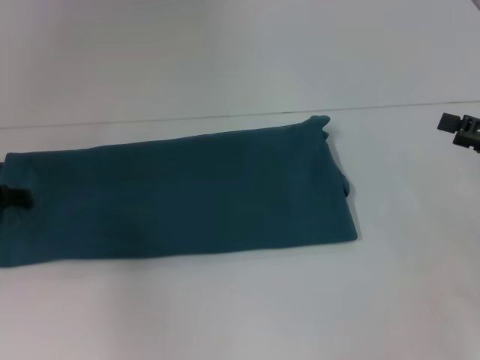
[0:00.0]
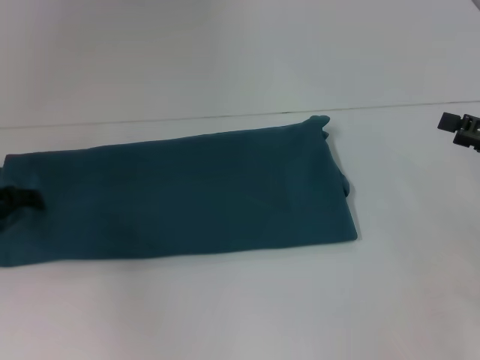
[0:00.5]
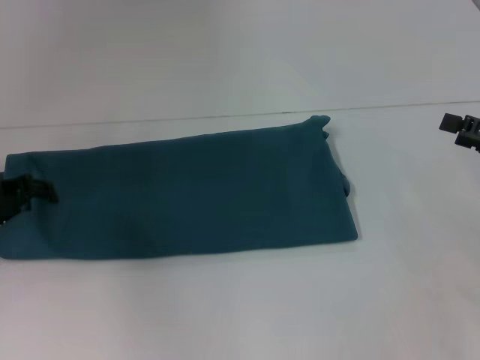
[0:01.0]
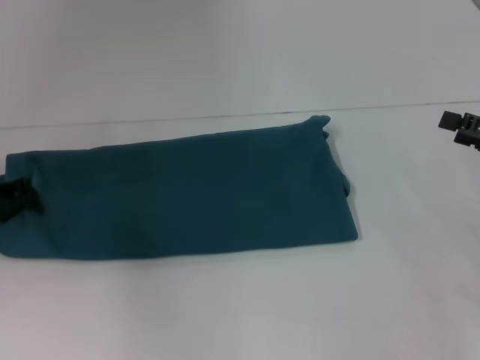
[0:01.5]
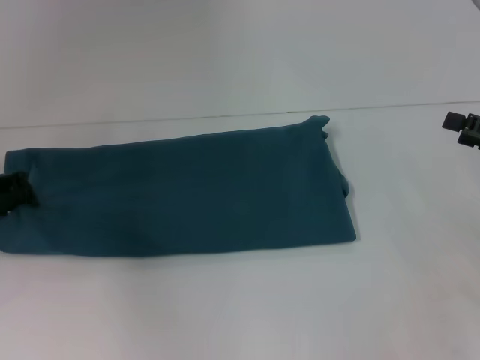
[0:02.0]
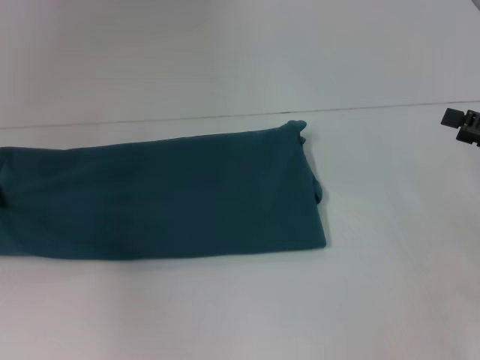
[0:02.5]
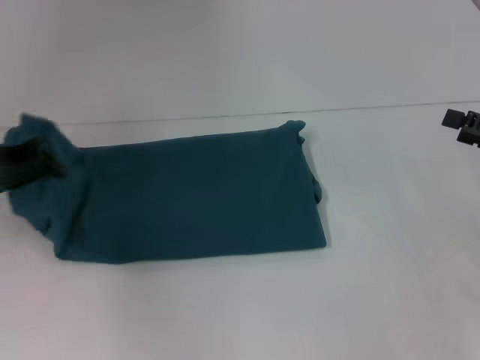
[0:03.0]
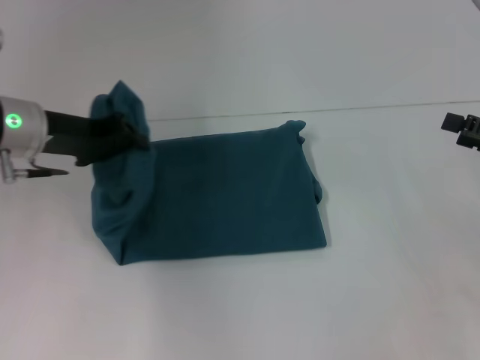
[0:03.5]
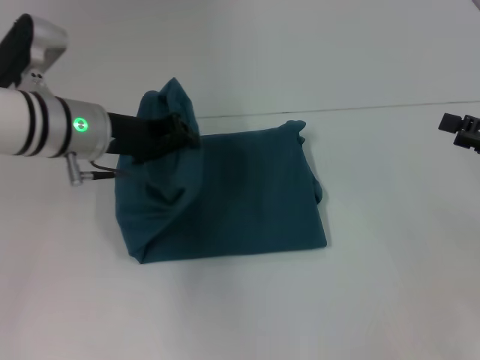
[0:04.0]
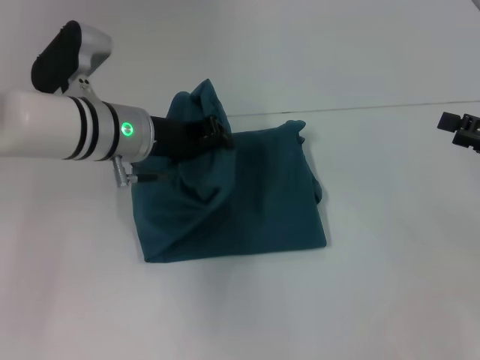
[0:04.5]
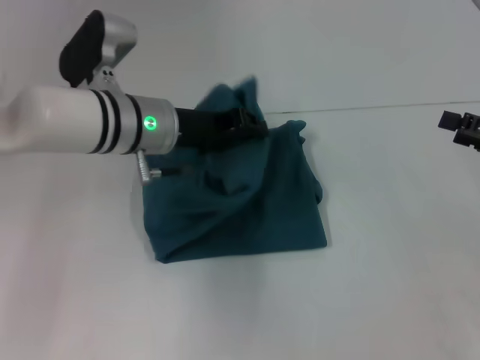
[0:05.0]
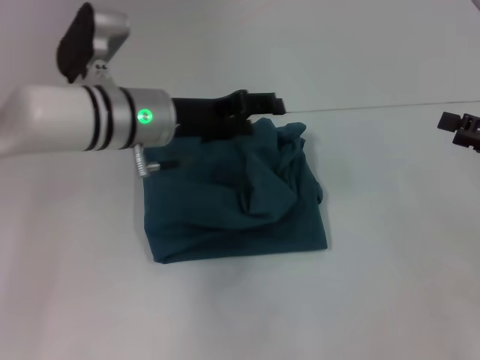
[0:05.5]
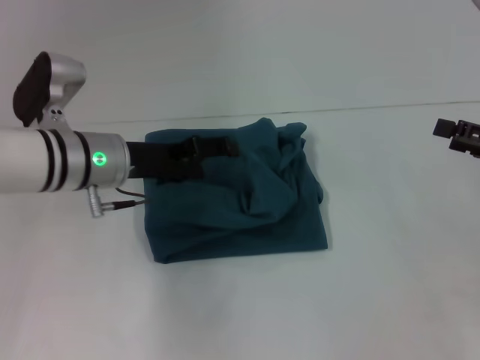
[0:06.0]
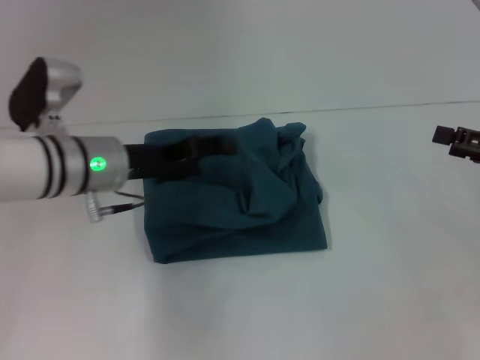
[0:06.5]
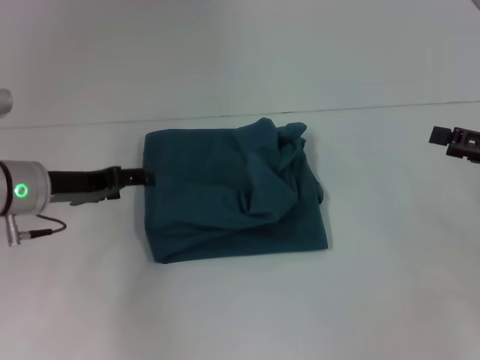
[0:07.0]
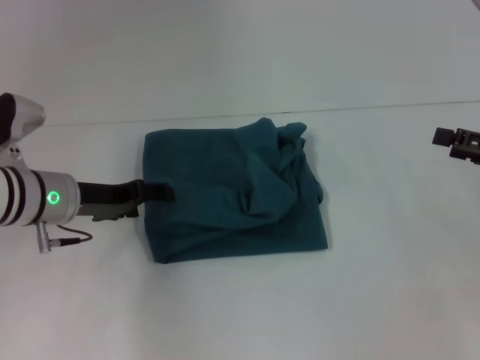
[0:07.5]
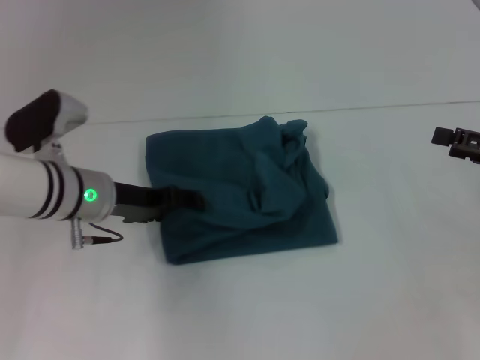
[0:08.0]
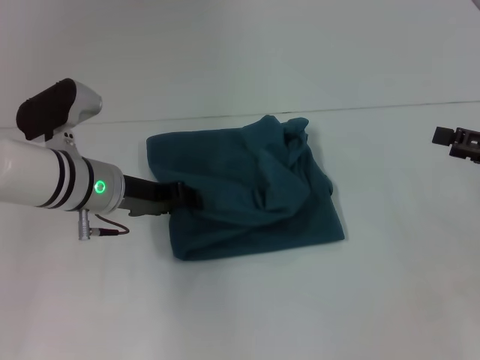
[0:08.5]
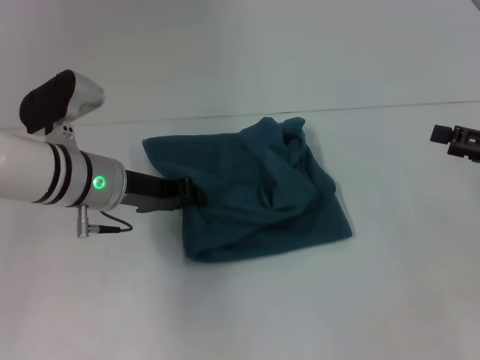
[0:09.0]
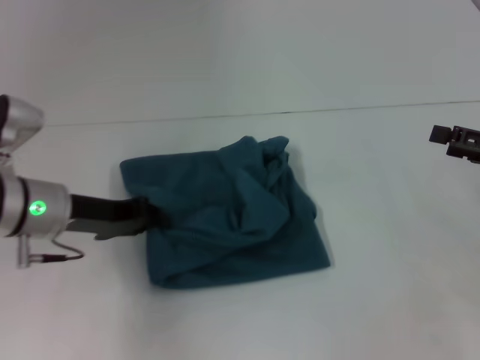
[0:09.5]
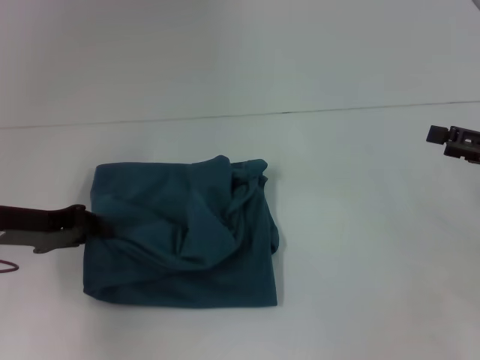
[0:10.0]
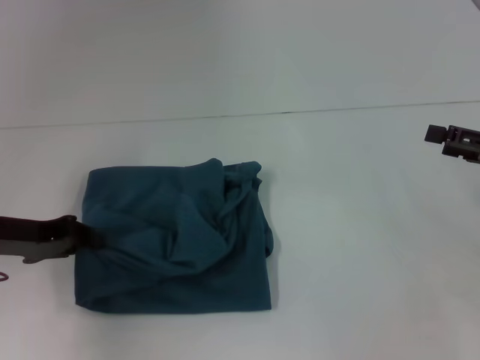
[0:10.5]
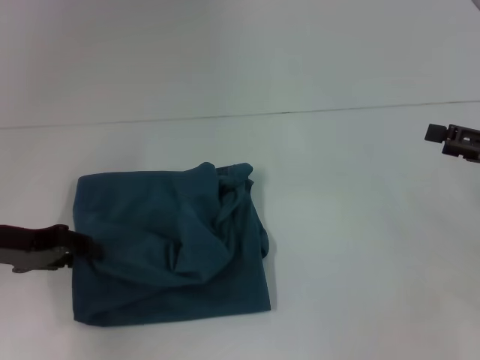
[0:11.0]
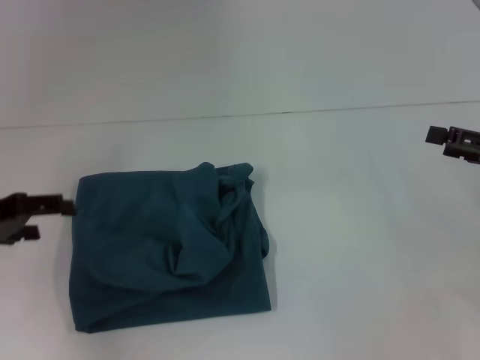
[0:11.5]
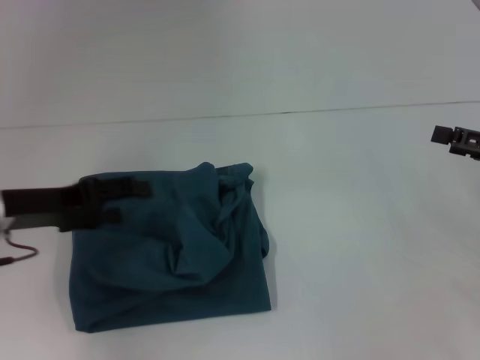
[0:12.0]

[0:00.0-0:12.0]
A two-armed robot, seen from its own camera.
Step, 0:00.0 to 0:05.0: Fold the clothes to the left.
0:00.0 to 0:02.0: The left gripper closes.
0:02.0 to 0:04.0: The left gripper shifts about 15 cm to the right.
0:04.0 to 0:06.0: The left gripper opens up.
0:06.0 to 0:08.0: The left gripper reaches roughly 10 cm to the left, then returns.
0:08.0 to 0:10.0: The left gripper moves to the left, about 10 cm, and closes its fingers.
0:10.0 to 0:12.0: The left gripper opens.

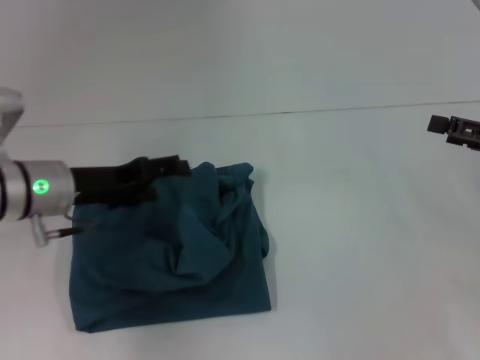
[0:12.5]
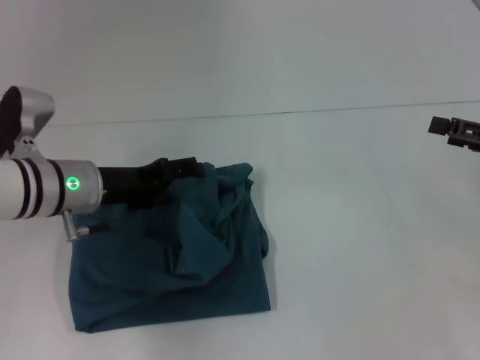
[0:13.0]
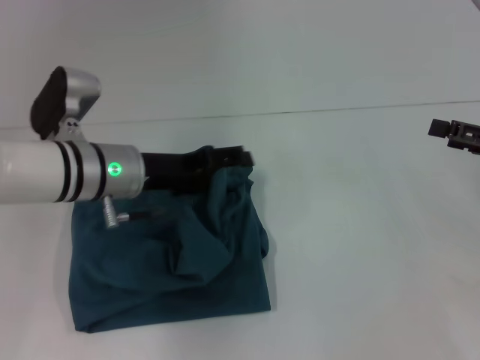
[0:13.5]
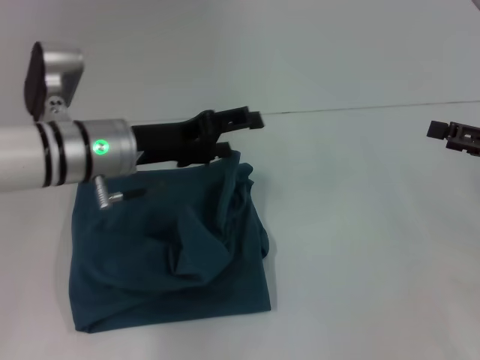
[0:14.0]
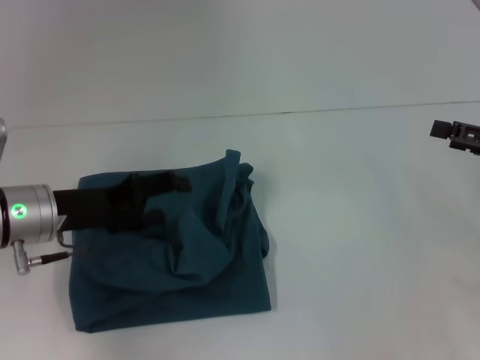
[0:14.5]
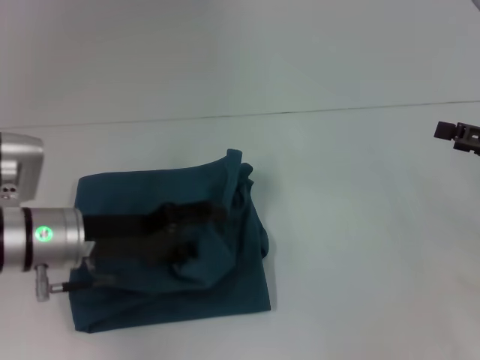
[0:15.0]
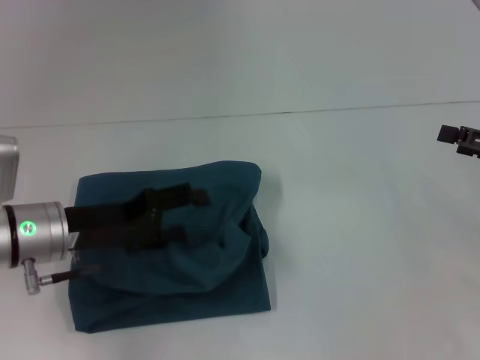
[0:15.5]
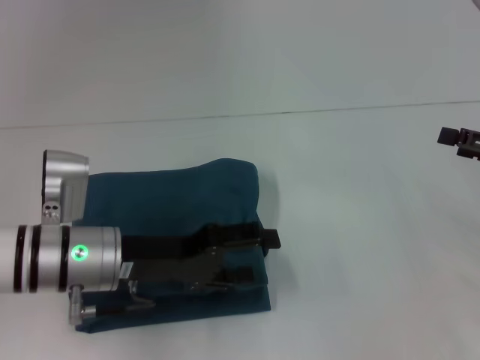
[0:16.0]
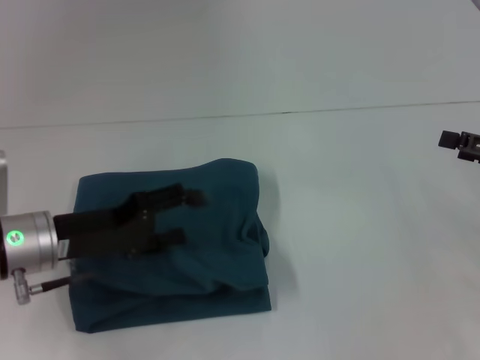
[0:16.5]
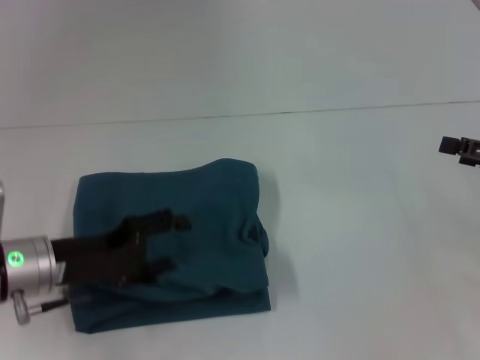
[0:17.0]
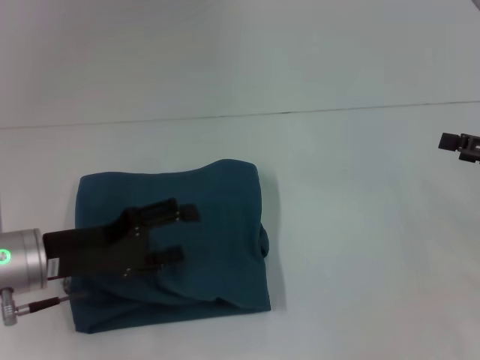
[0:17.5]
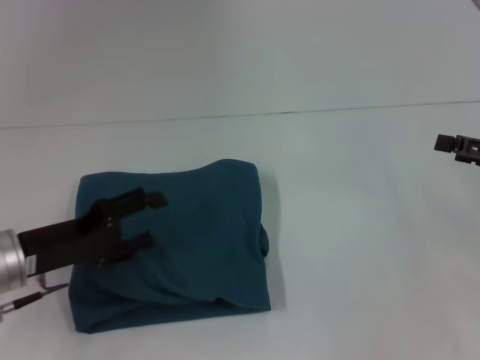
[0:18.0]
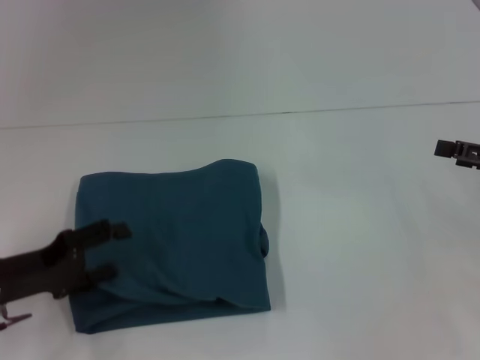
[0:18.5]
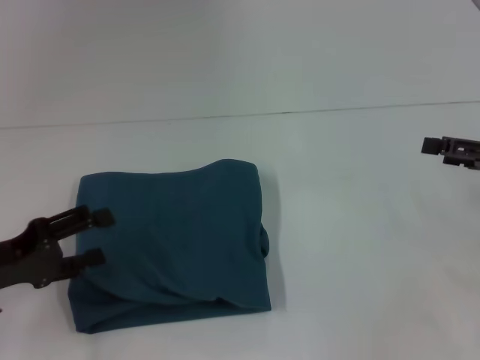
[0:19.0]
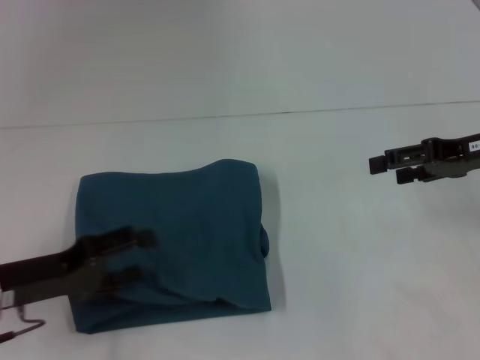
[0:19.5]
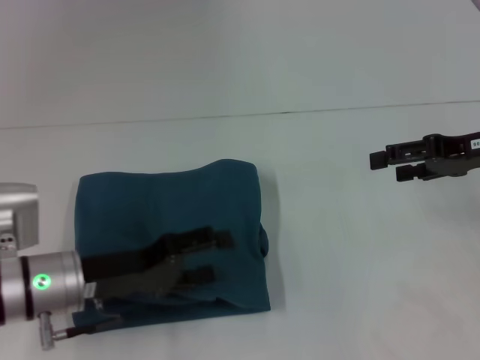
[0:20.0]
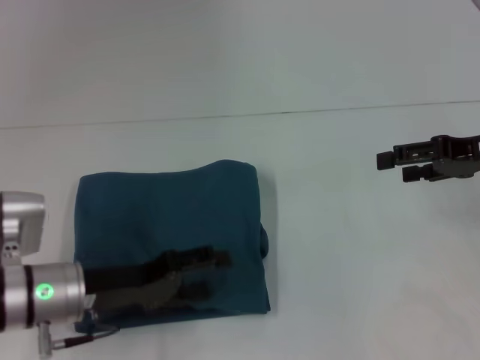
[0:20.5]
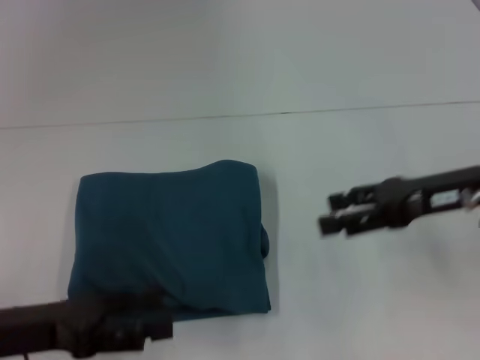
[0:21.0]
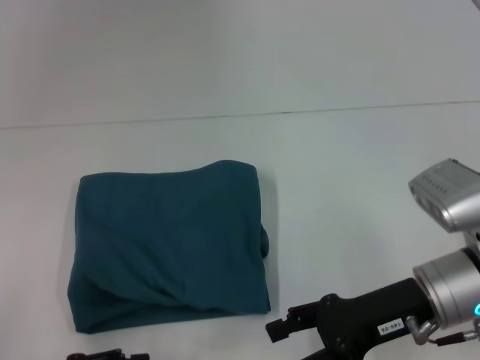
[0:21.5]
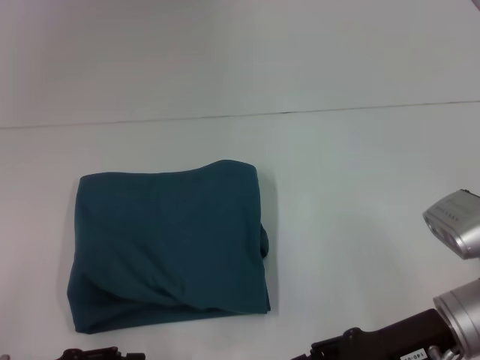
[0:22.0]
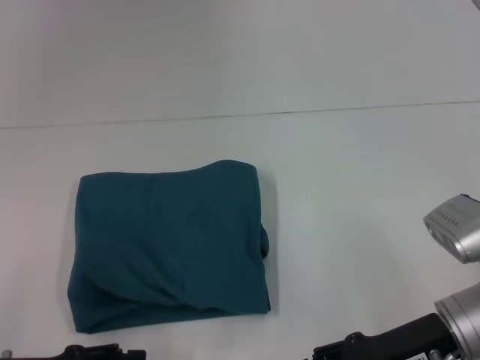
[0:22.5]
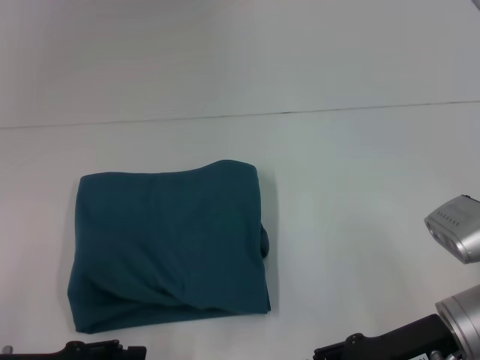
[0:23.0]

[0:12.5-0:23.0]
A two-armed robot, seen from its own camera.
0:12.5 to 0:14.5: The left gripper reaches approximately 5 cm to the right, then returns.
0:16.5 to 0:19.0: The left gripper goes approximately 10 cm to the left.
0:19.0 to 0:21.0: The right gripper is displaced to the left by approximately 10 cm.
0:21.0 to 0:23.0: The right gripper is displaced downward and backward by about 10 cm.

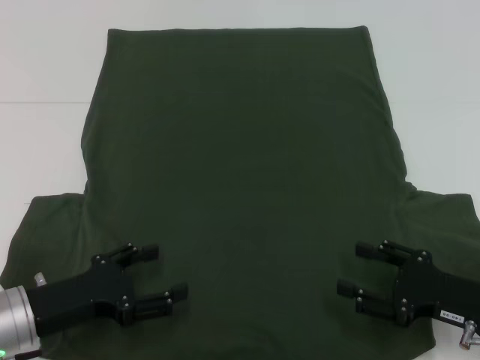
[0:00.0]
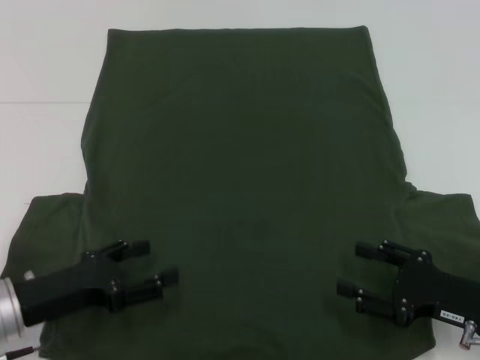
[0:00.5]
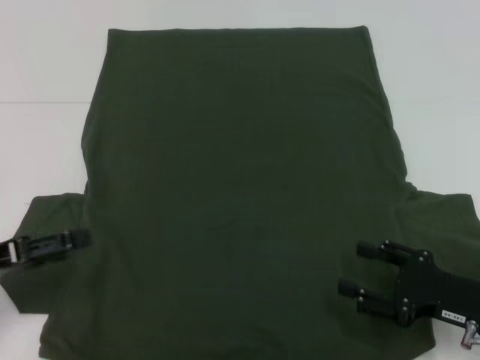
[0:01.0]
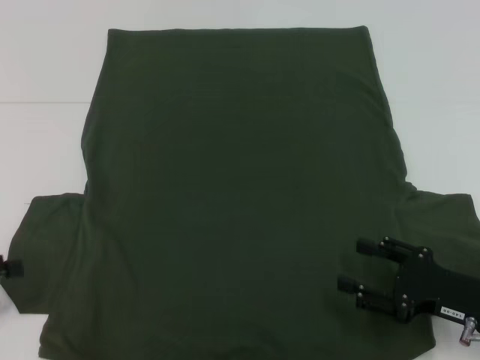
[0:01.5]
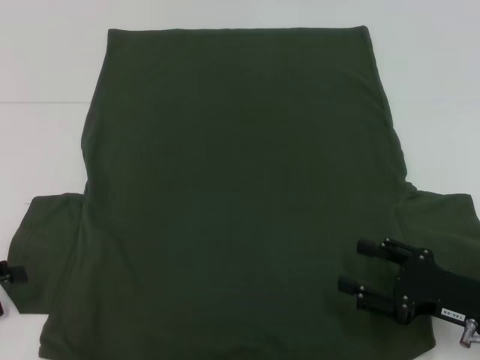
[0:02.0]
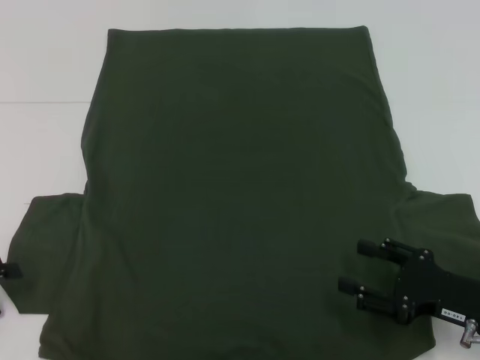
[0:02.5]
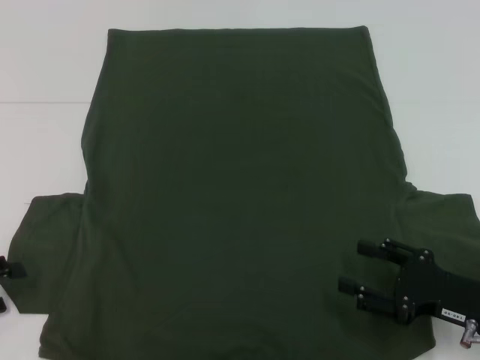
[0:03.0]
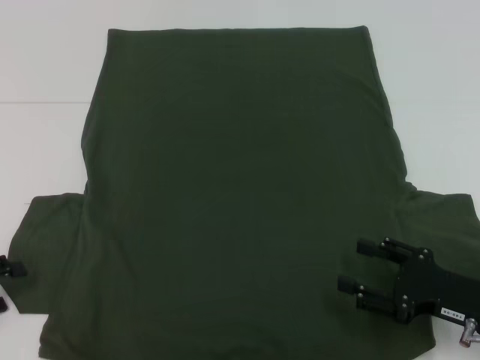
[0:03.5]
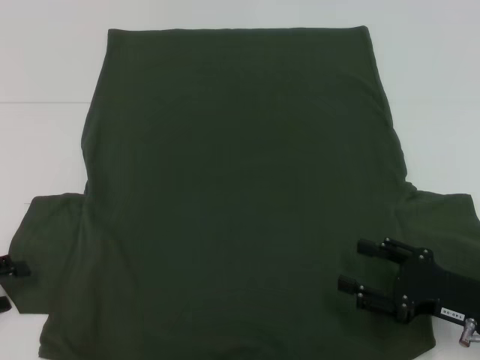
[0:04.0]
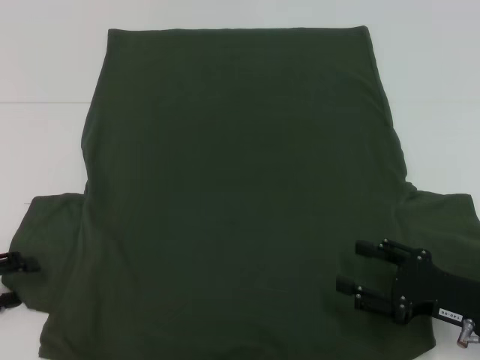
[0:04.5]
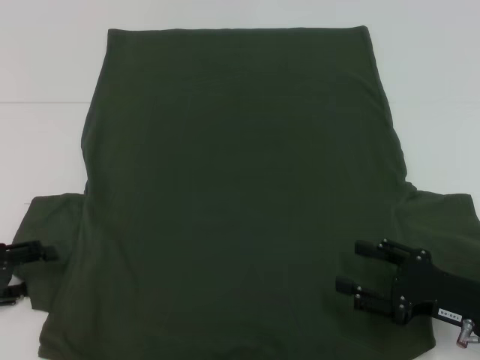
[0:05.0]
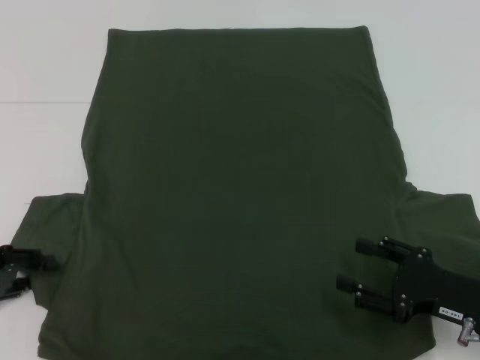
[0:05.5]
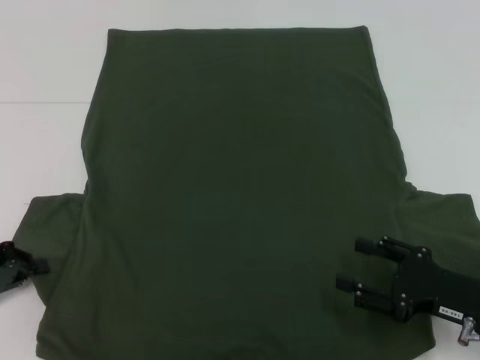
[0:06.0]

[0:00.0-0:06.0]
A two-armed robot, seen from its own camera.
0:00.0 to 0:02.0: The left gripper shifts about 15 cm to the left.
0:04.0 to 0:06.0: The left gripper closes up.
